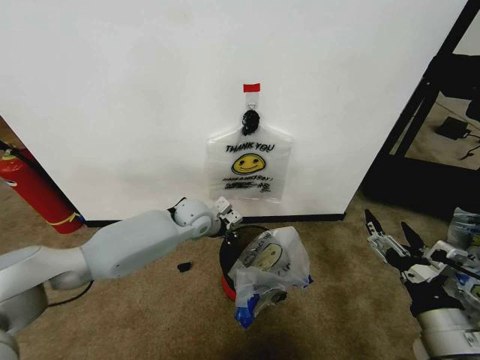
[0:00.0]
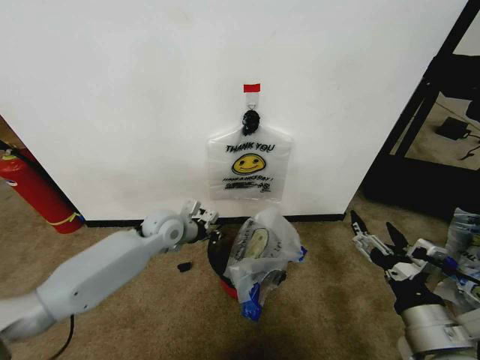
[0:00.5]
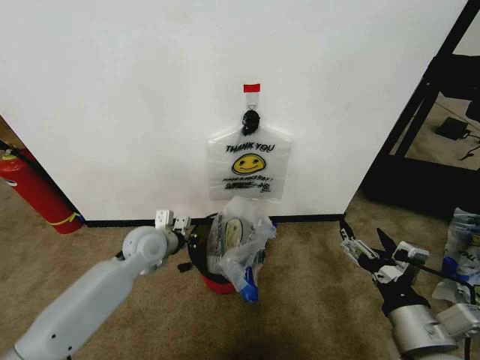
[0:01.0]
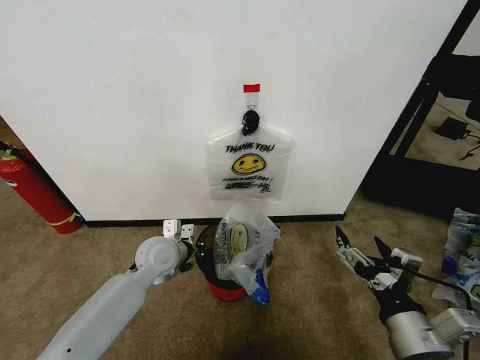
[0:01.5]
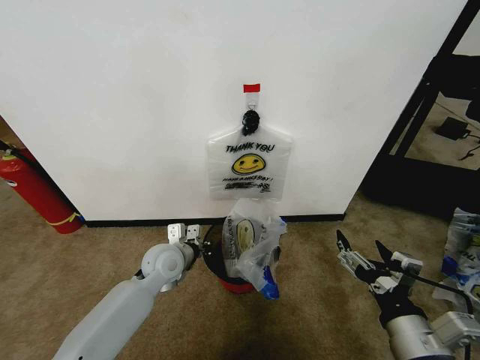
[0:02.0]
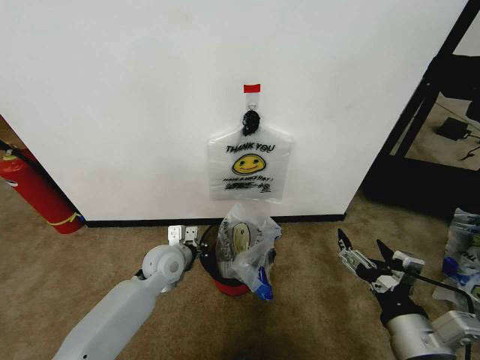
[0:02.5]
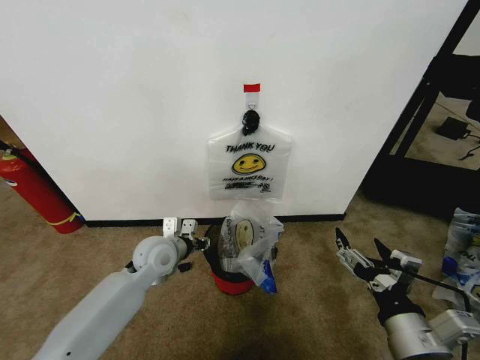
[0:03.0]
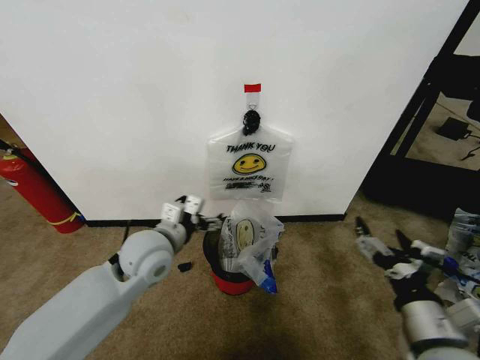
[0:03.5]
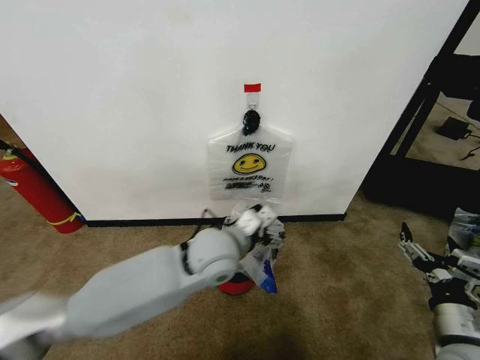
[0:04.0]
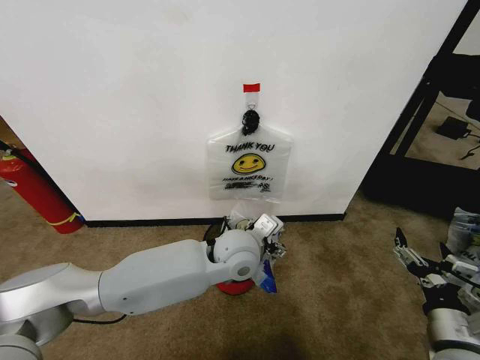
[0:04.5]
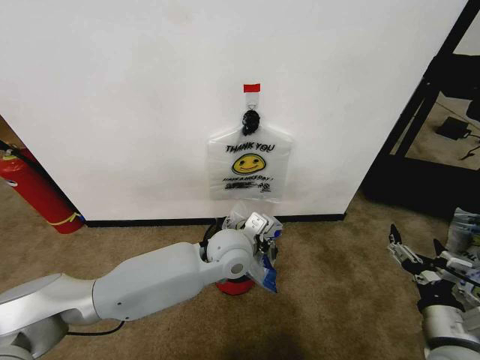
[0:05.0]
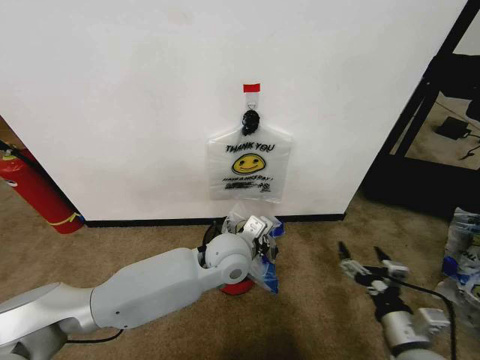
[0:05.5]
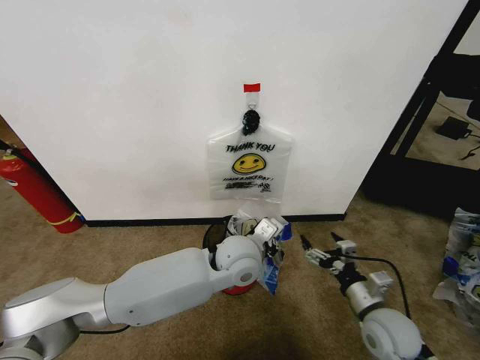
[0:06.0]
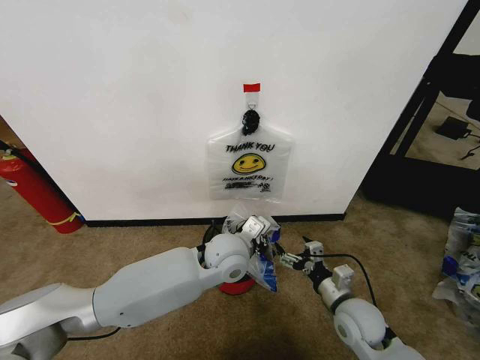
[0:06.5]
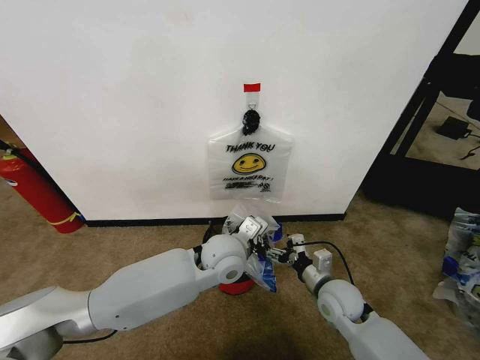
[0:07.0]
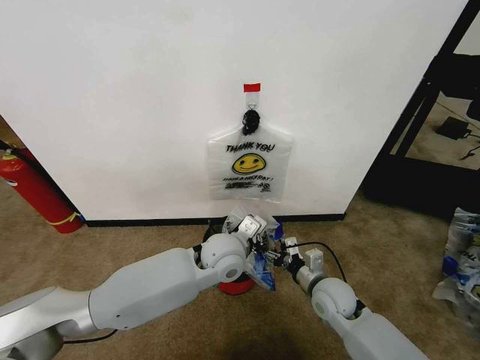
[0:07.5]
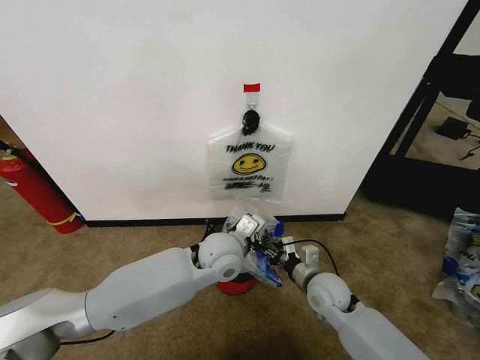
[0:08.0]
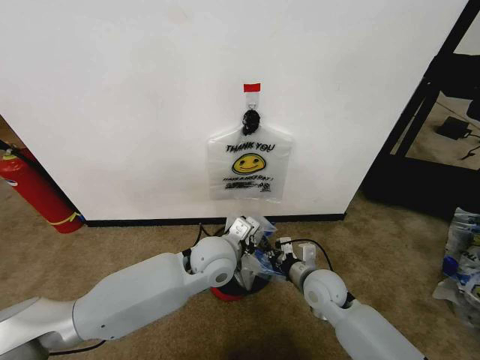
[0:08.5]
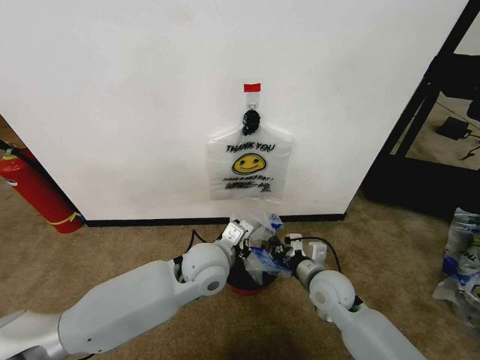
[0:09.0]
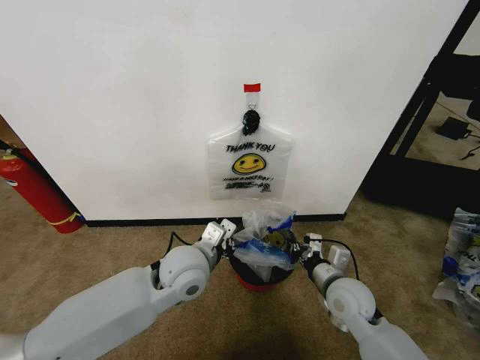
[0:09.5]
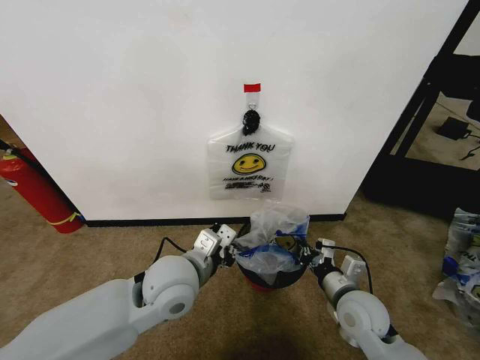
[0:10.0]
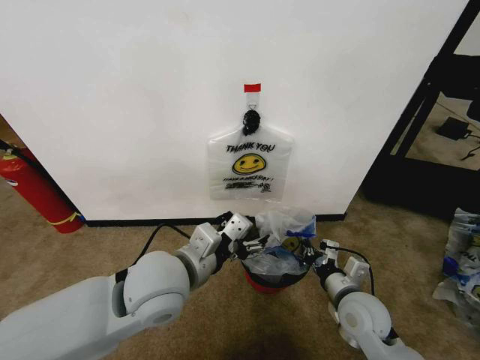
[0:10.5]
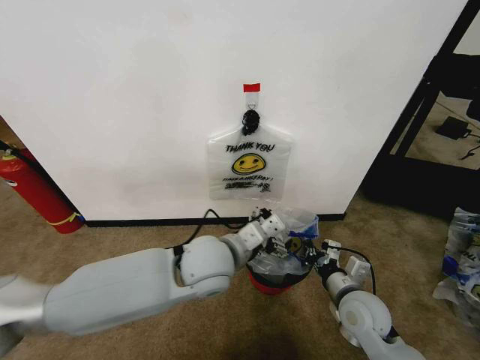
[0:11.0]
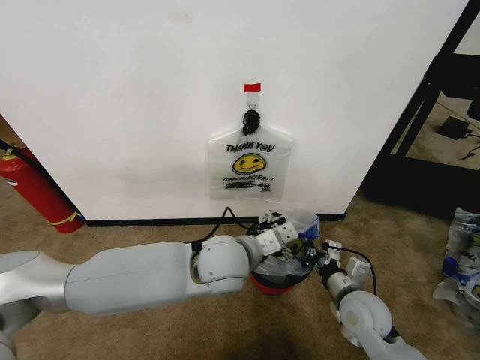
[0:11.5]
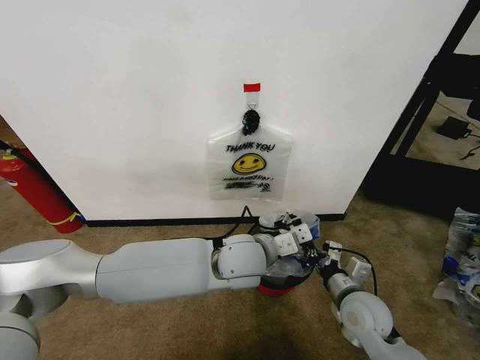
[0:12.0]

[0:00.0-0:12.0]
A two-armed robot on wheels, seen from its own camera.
Task of the whole recording: Pick up the garbage bag from the wall and place it over the trash bin.
0:00.0 to 0:02.0: The left gripper travels backward and to the left by roughly 15 cm.
0:02.0 to 0:04.0: The left gripper shifts some 15 cm to the right and upward, and opens its fingers. The right gripper heads to the right and downward, covering roughly 10 cm.
0:04.0 to 0:06.0: The left gripper shifts by some 5 cm, and closes. The right gripper travels forward, downward and to the left by some 10 cm.
0:06.0 to 0:08.0: The right gripper is displaced forward and to the left by about 15 cm, and closes its fingers.
0:08.0 to 0:10.0: The right gripper moves backward, approximately 5 cm, and closes up; the left gripper travels to the left and backward by approximately 10 cm.
0:10.0 to 0:12.0: The left gripper goes some 15 cm to the right and forward, and opens its fingers.

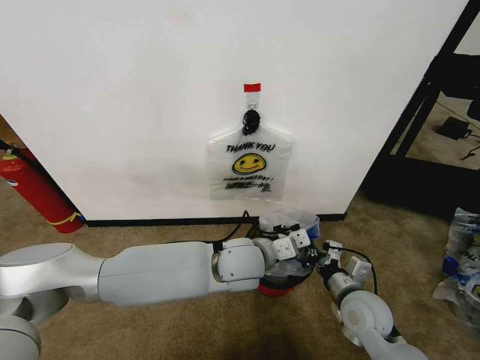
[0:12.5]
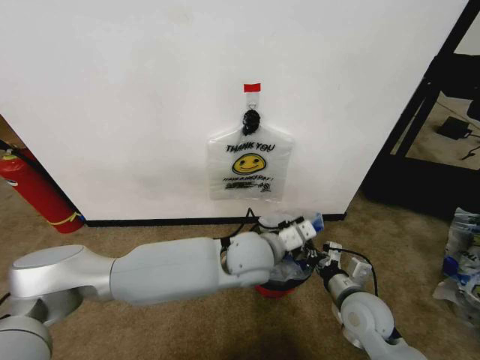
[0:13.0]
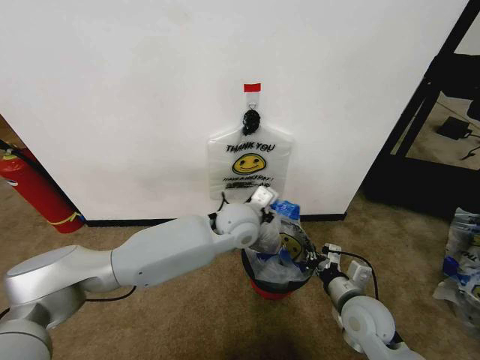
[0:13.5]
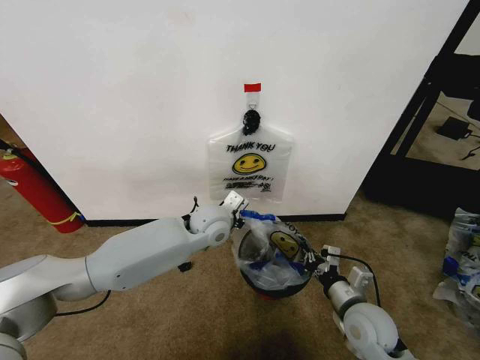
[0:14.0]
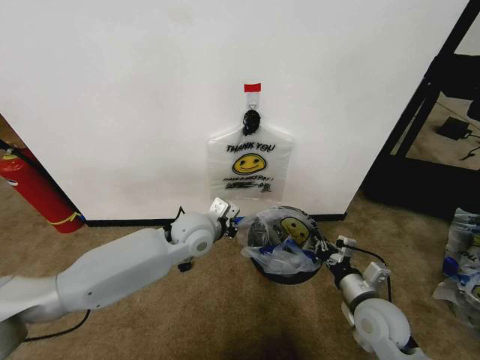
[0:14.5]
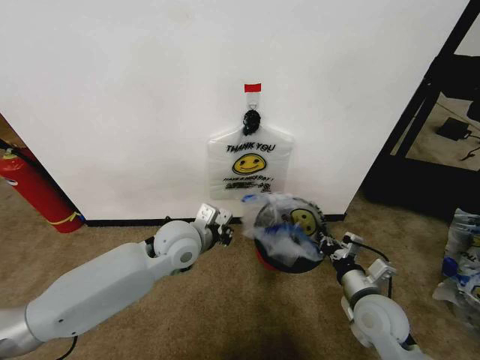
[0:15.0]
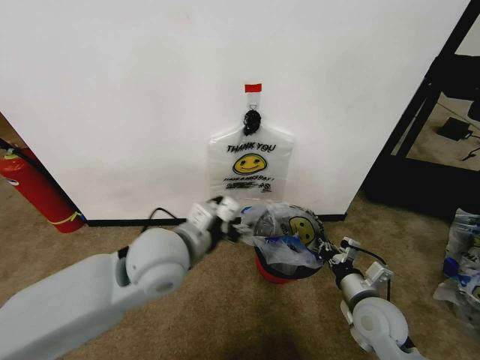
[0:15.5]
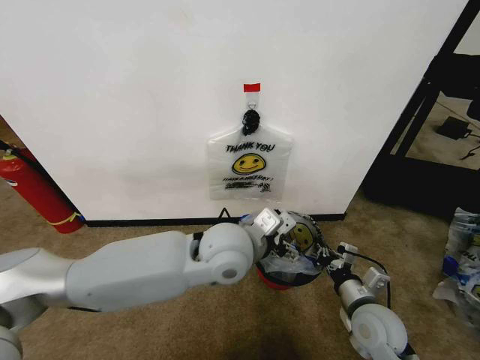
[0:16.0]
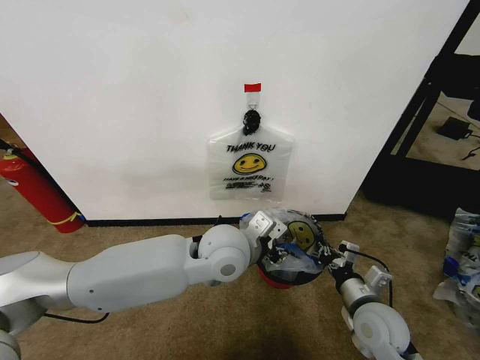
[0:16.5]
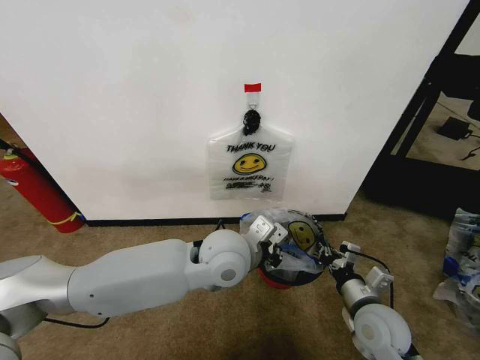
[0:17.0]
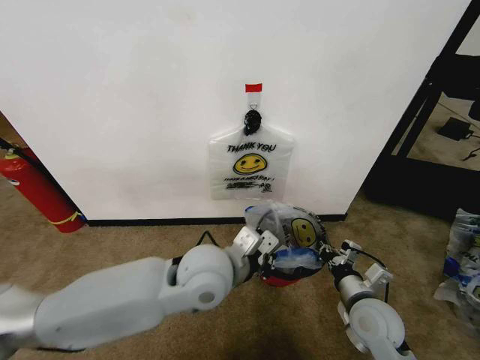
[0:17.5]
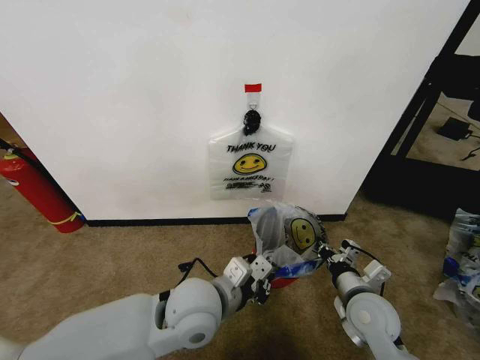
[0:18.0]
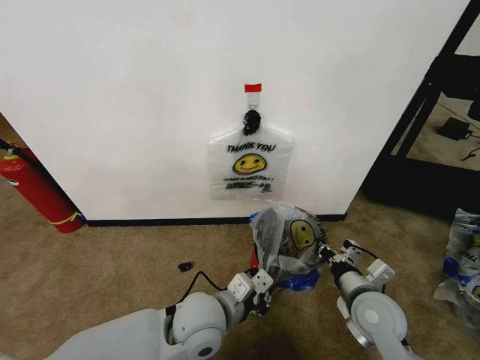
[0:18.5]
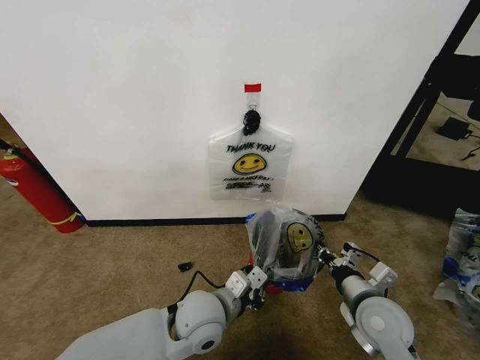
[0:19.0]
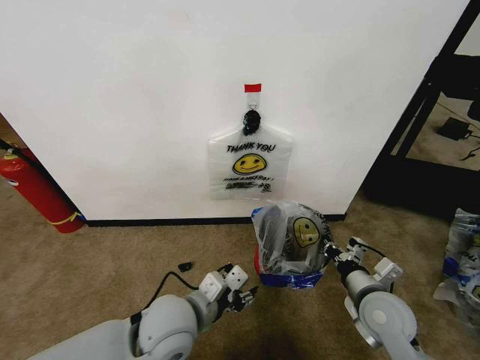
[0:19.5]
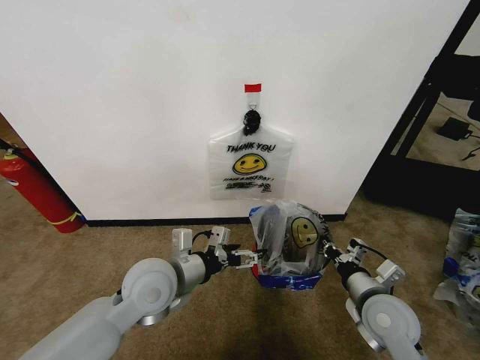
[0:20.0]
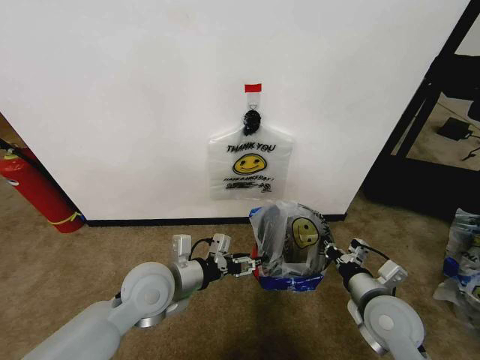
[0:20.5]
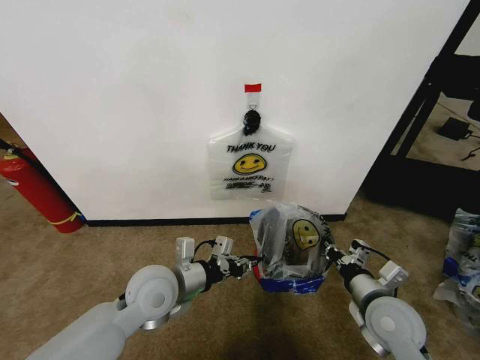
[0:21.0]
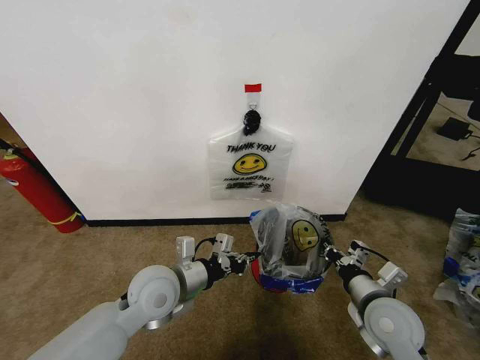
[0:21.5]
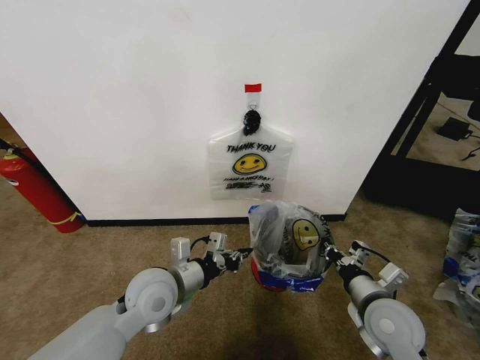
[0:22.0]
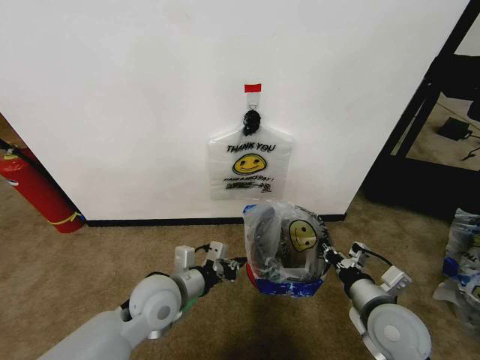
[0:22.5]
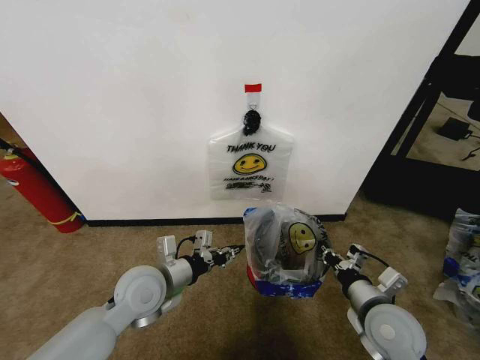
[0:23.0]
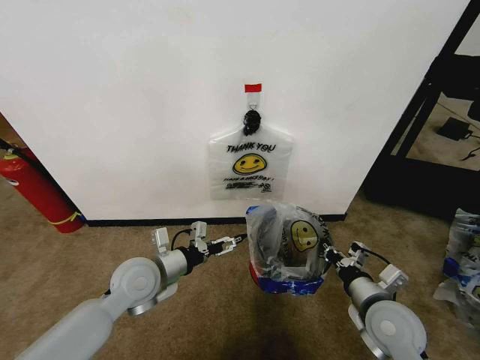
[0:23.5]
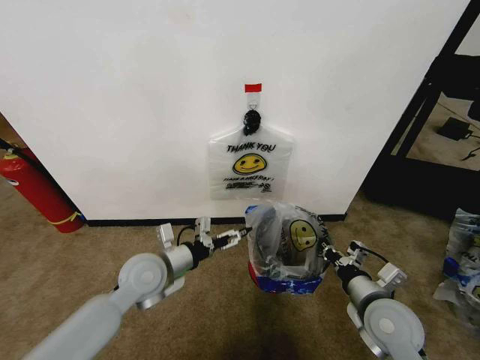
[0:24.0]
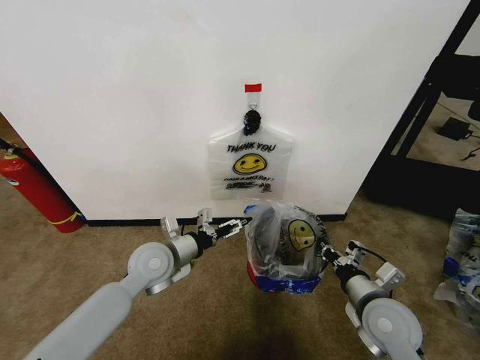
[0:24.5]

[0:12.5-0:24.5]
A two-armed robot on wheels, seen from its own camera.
Task of the whole recording: Pick up the garbage bag from the wall and place it over the trash bin.
0:12.5 to 0:14.5: The left gripper moves to the left and forward, about 15 cm.
0:14.5 to 0:16.5: The left gripper moves to the right, backward and upward, approximately 15 cm, and opens its fingers.
0:16.5 to 0:18.5: The left gripper moves backward and downward, roughly 15 cm, and closes its fingers.
0:18.5 to 0:20.5: The left gripper heads to the left and forward, covering about 10 cm, and opens its fingers.
0:20.5 to 0:22.5: The left gripper closes.
0:22.5 to 0:24.5: The left gripper shifts approximately 5 cm forward, and opens its fingers.

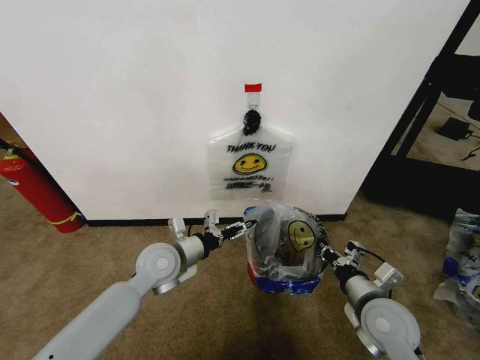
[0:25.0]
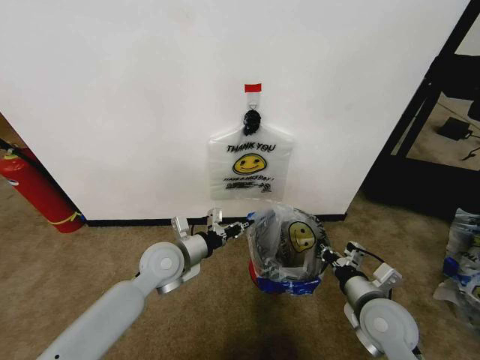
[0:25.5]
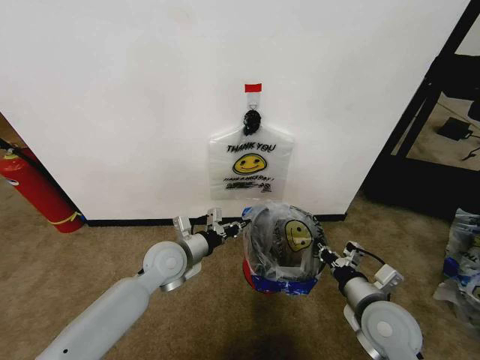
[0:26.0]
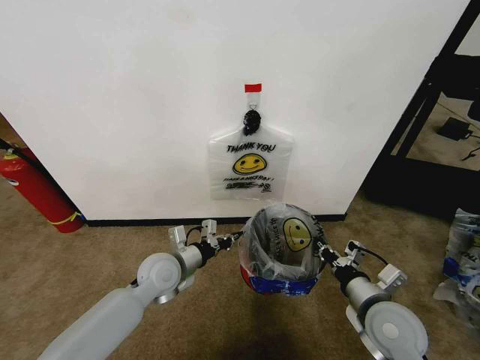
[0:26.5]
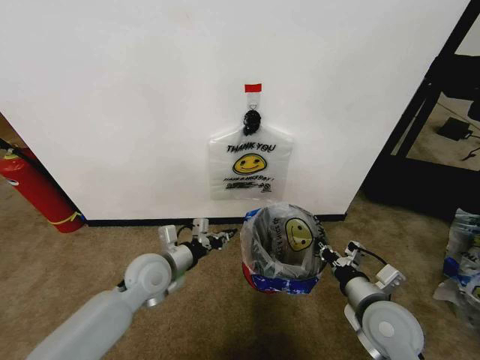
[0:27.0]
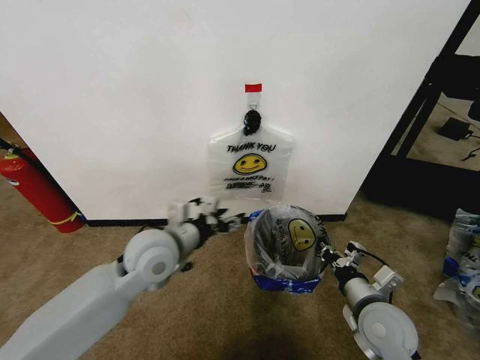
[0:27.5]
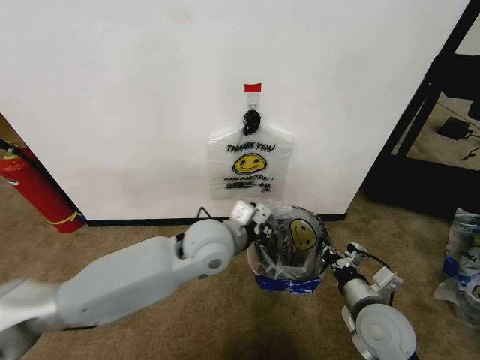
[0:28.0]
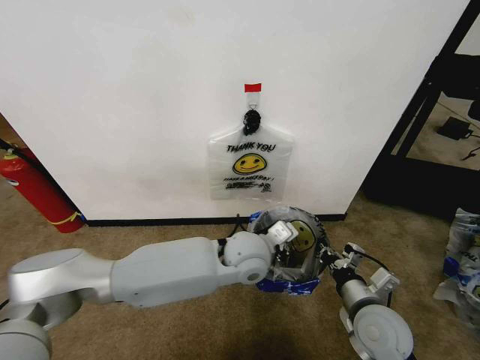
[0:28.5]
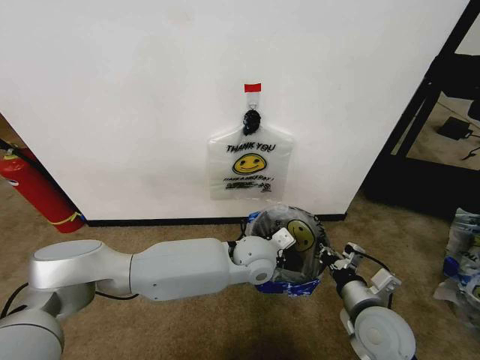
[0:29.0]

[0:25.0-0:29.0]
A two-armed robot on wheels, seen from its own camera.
Task of the whole recording: Pick up the garbage bag from the wall and place it over the trash bin.
0:25.0 to 0:27.0: There are only small adjustments of the grippers.
0:27.0 to 0:29.0: The left gripper travels to the right by roughly 25 cm, and opens, then closes again.
